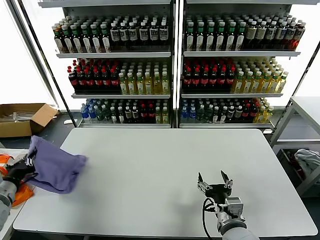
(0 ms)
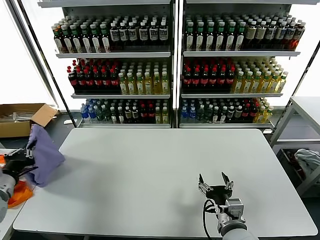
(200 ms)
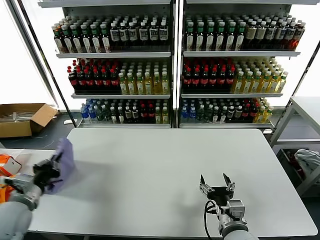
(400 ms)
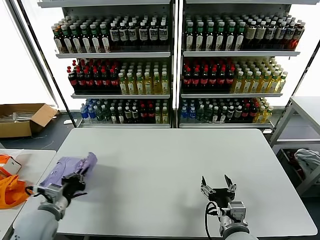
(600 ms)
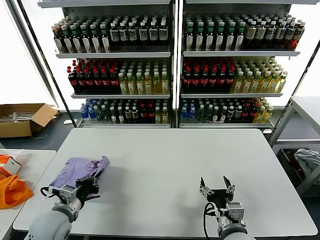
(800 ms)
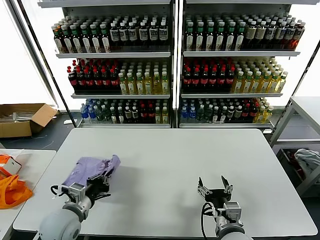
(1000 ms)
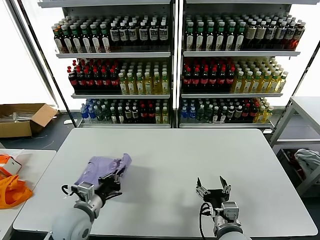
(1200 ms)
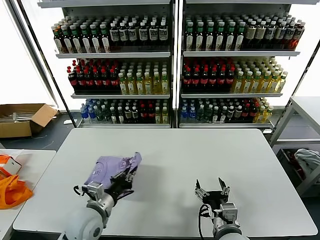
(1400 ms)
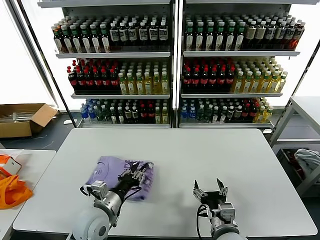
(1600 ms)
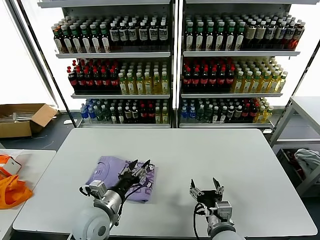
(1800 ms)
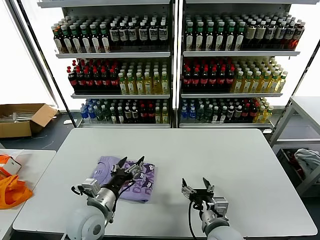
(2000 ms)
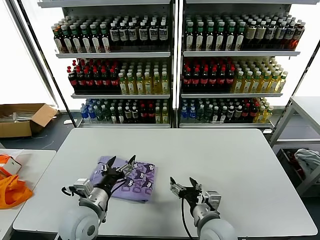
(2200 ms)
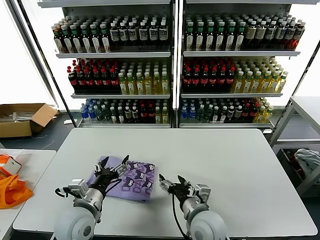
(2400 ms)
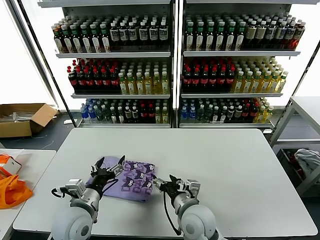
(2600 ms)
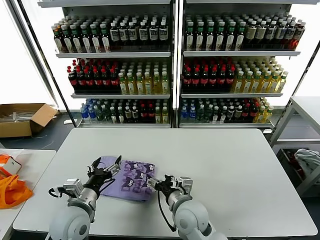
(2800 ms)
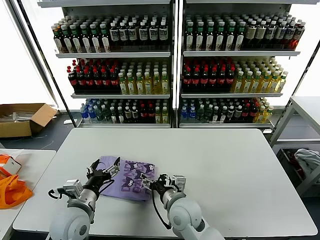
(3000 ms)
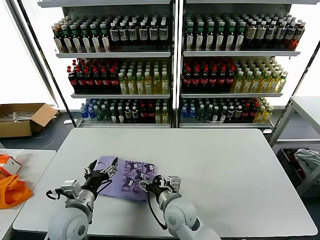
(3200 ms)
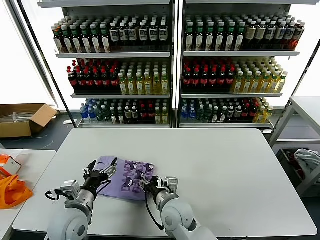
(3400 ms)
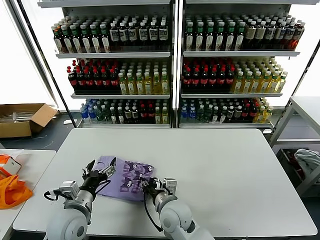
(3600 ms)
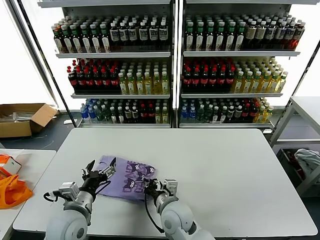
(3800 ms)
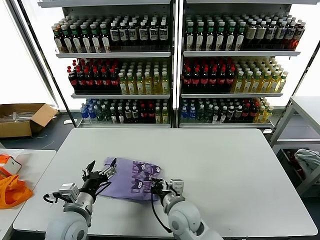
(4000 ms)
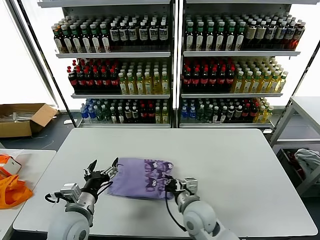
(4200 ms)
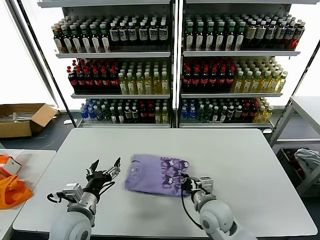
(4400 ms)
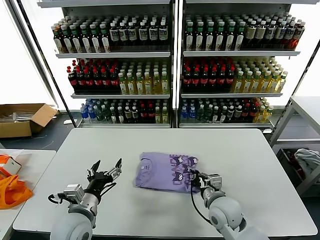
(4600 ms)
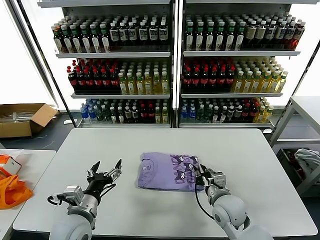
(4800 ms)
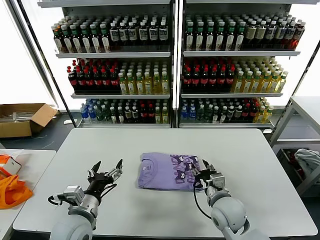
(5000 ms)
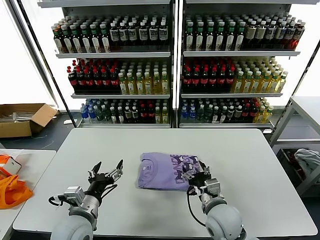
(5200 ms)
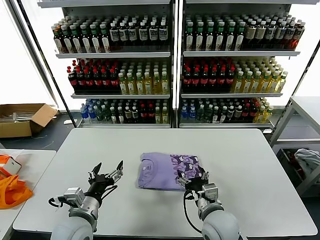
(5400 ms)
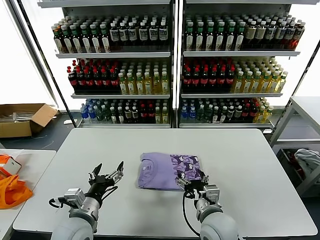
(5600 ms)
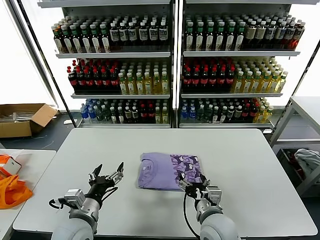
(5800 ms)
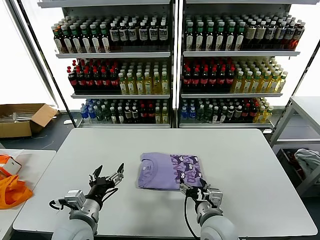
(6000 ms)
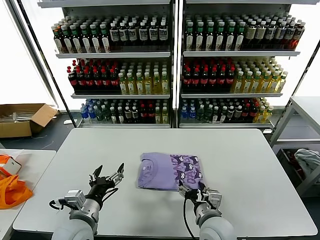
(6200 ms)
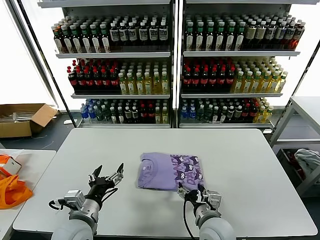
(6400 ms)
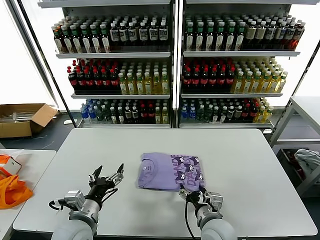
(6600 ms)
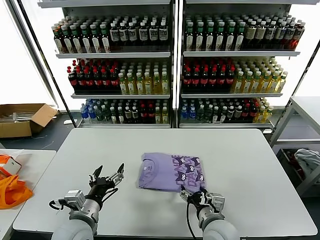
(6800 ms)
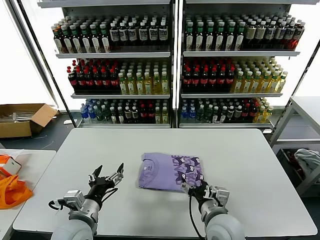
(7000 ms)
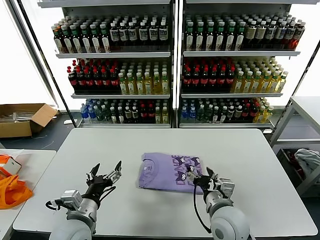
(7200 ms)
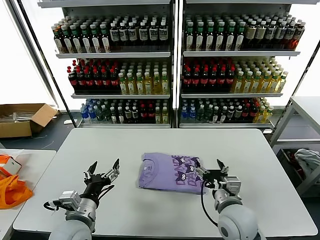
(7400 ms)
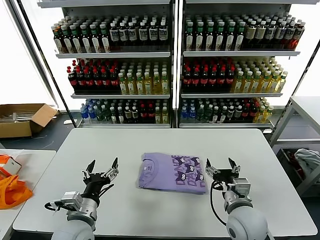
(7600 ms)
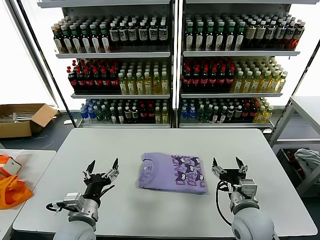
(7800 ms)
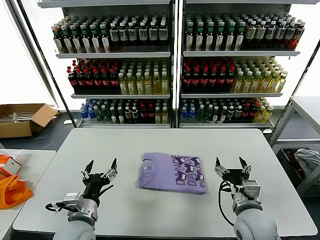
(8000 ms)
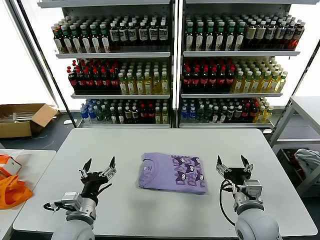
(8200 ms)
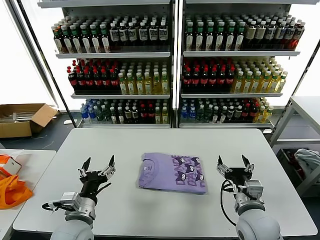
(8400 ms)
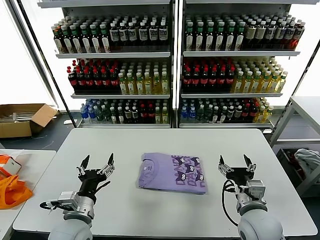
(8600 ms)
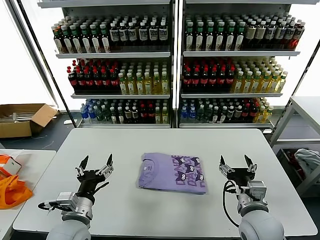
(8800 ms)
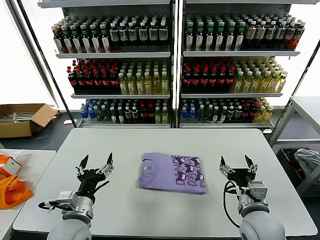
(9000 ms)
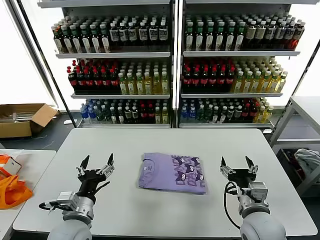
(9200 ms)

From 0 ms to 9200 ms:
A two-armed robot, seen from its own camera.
Task of the whole recording: fold and organize the clothes.
Step, from 1800 ms to 6800 ms: Drag the clothes to the center of the table.
From 0 ms to 1600 ms: The left gripper heads to the right, covering approximately 25 cm.
From 1600 ms to 3000 ms: The right gripper travels to the left and forward by approximately 15 cm. Meanwhile the left gripper opens its fingers.
From 3000 ms to 4600 ms: The right gripper heads to the right, covering about 10 cm, and closes up.
From 4600 ms to 6200 ms: The right gripper travels backward by roughly 5 cm, and opens up.
From 6200 ms to 7600 ms: The right gripper heads to the right, covering roughly 5 cm.
From 7600 ms to 9200 ms: The grippers move only a little.
